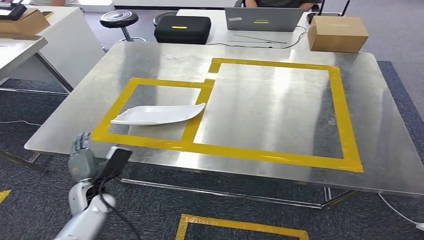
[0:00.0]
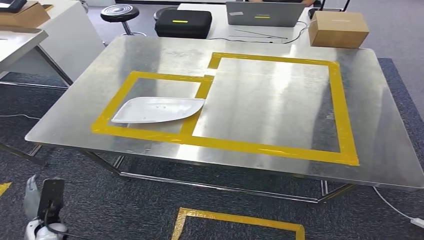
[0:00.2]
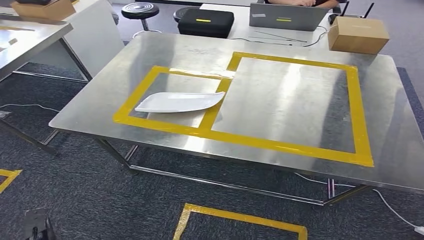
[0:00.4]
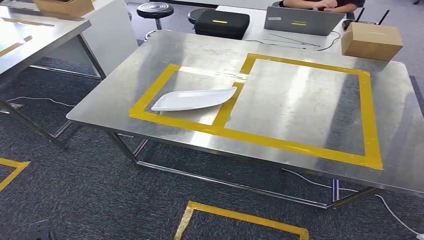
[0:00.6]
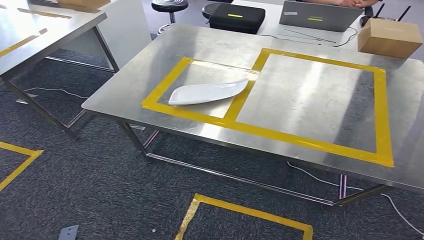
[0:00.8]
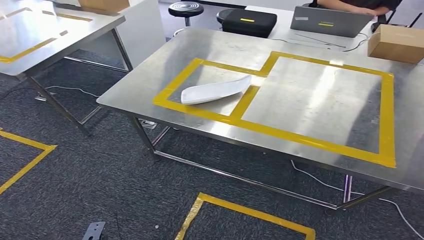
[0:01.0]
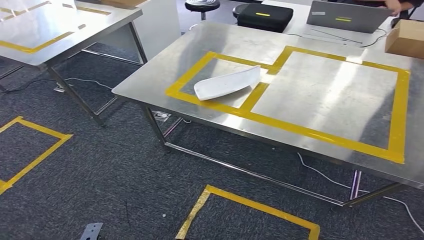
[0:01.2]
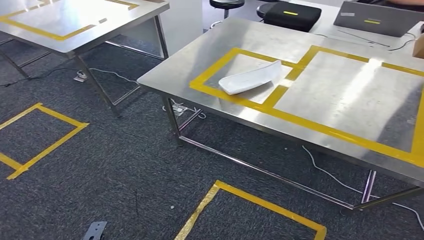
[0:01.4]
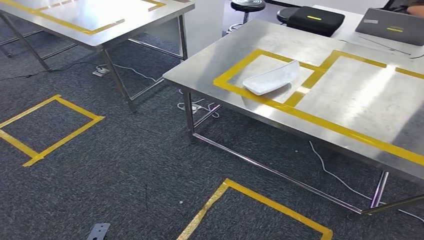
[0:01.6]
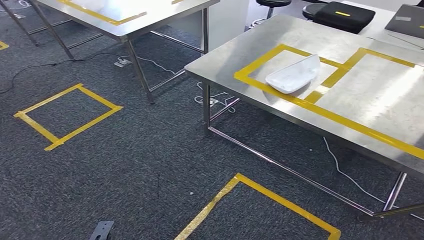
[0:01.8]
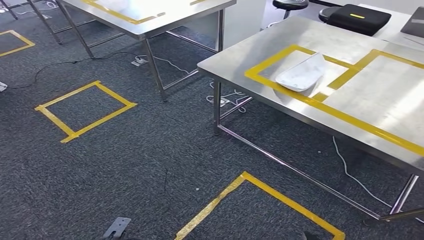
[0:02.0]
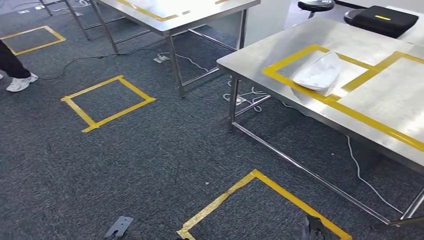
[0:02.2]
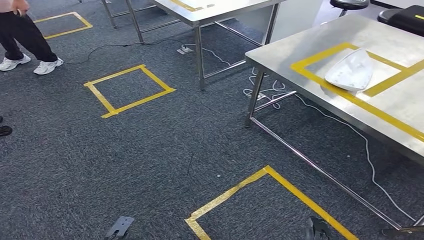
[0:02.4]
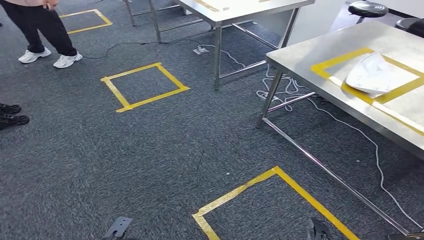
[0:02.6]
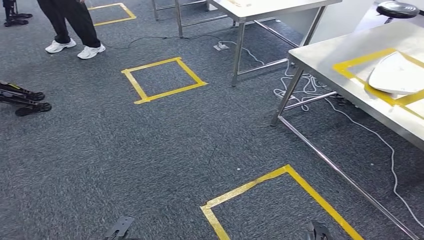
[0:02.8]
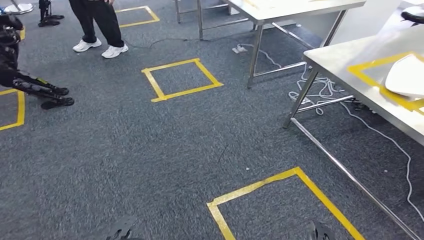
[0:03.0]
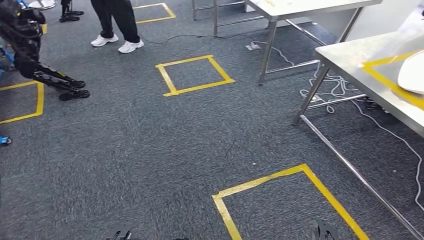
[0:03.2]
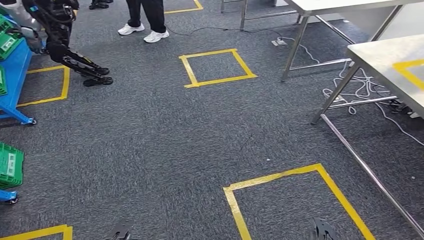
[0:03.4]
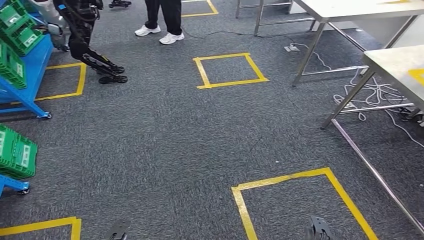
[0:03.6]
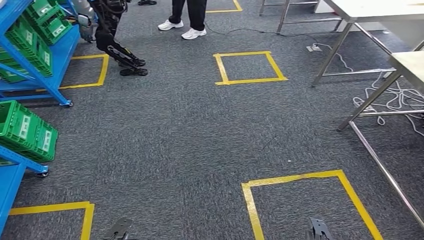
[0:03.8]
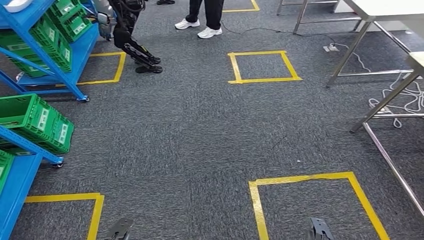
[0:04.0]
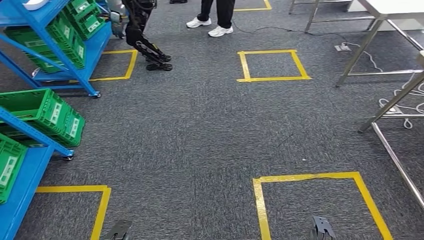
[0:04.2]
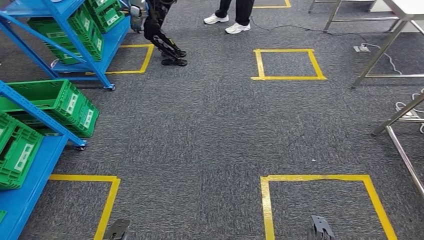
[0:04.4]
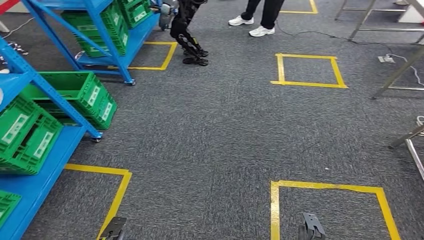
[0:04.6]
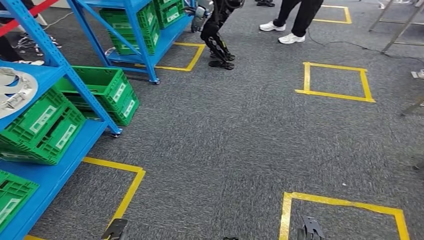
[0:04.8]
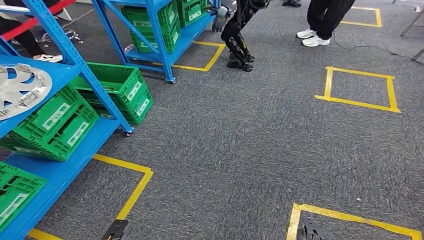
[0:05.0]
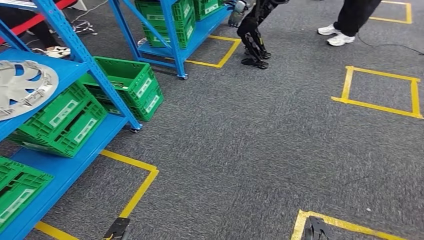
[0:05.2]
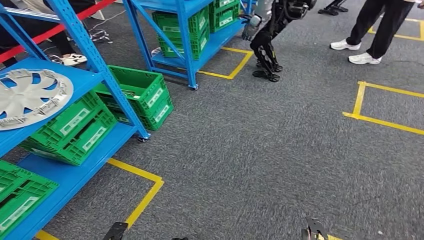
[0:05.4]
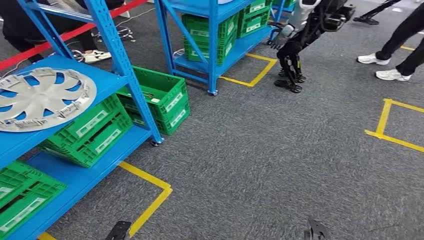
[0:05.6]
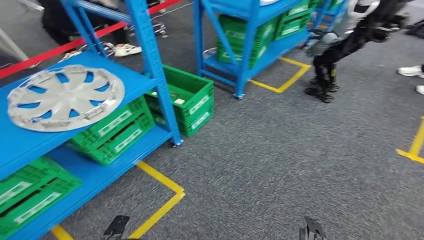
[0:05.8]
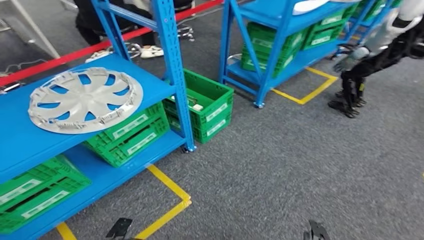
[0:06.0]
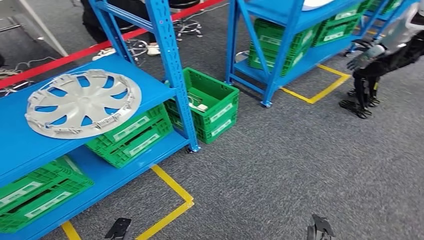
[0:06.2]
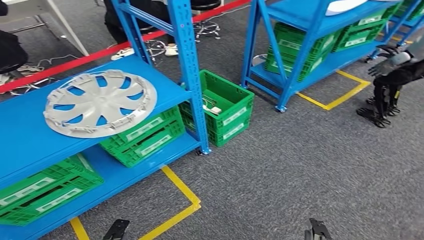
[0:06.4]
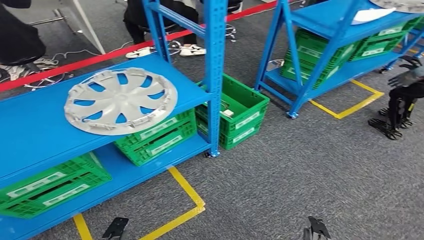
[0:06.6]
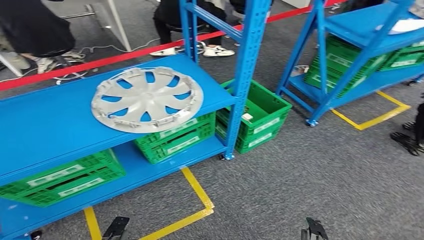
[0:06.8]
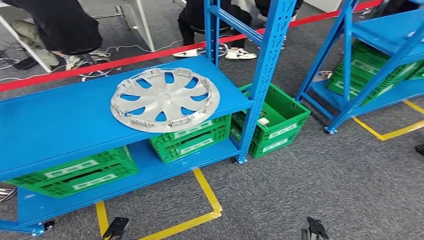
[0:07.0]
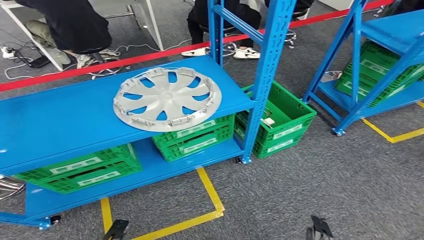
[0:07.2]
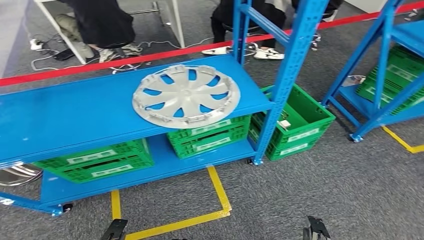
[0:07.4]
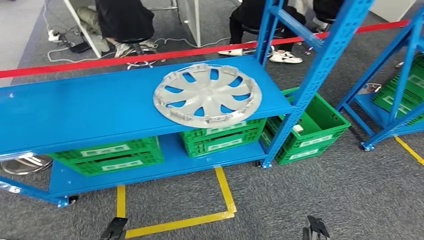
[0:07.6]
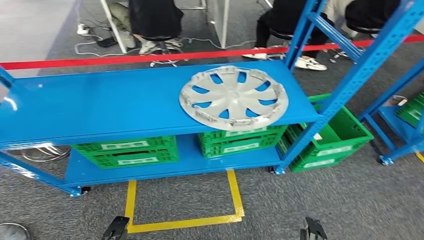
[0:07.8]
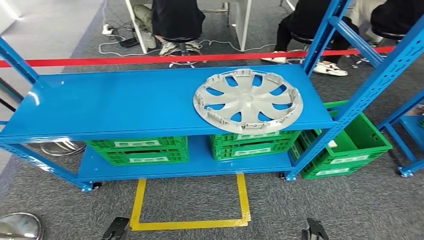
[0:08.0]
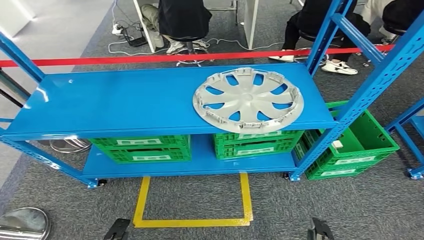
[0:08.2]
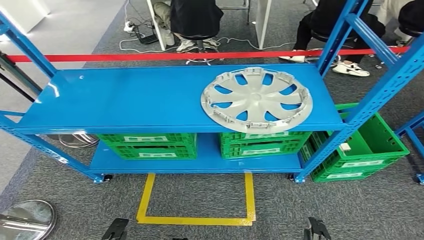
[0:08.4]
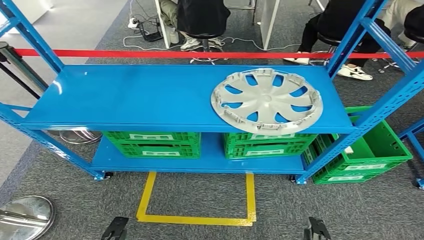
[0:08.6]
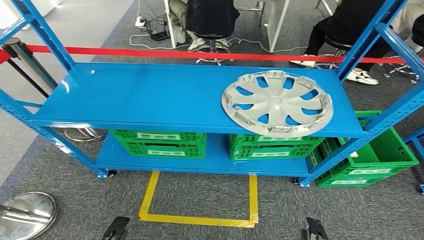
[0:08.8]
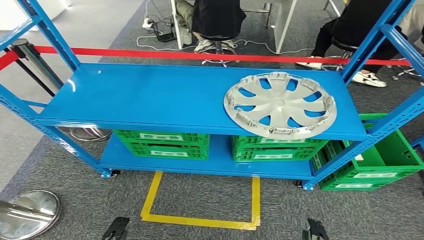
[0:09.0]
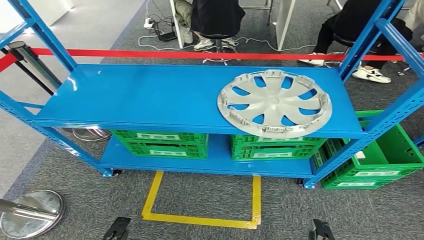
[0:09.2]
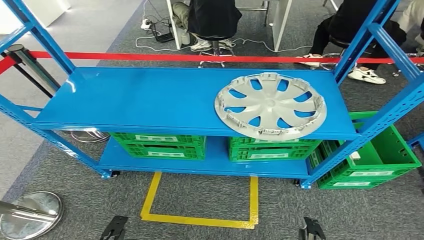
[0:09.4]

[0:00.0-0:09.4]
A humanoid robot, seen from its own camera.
Step, 0:00.0 to 0:02.2: Insert the small component into the corresponding slot on the workbench.
Step, 0:02.4 to 0:09.4: Return to the initial position at the workbench.

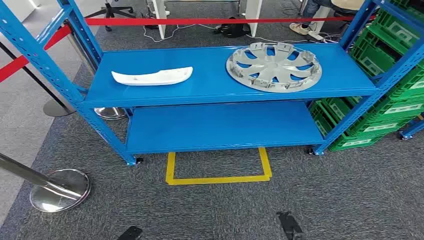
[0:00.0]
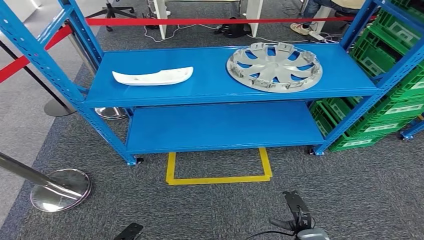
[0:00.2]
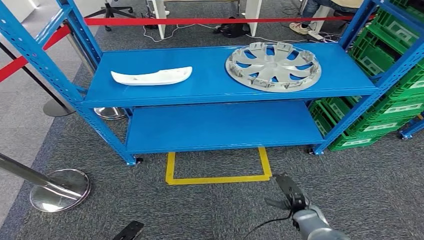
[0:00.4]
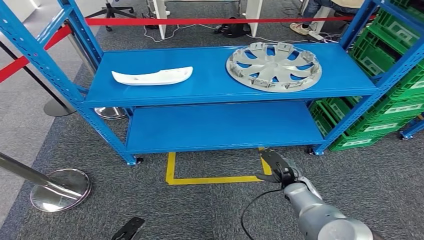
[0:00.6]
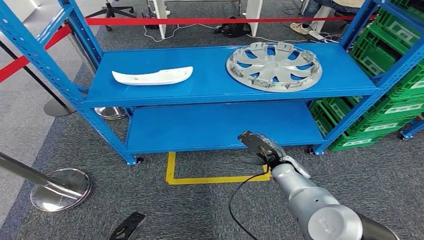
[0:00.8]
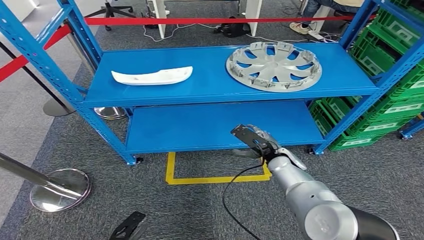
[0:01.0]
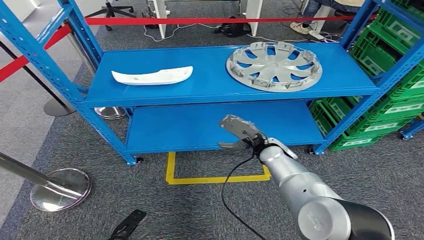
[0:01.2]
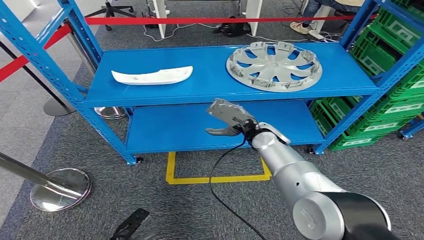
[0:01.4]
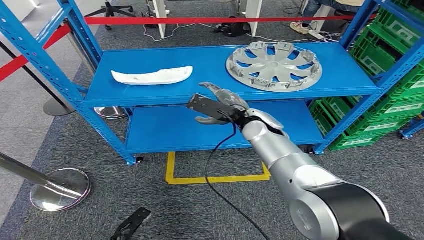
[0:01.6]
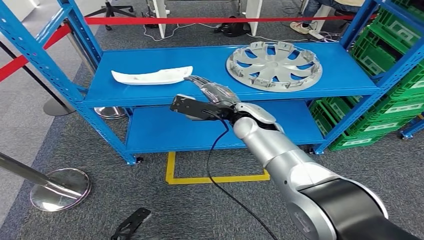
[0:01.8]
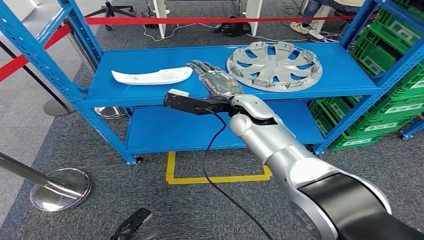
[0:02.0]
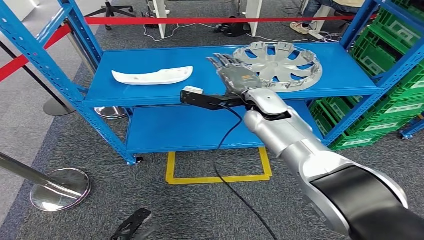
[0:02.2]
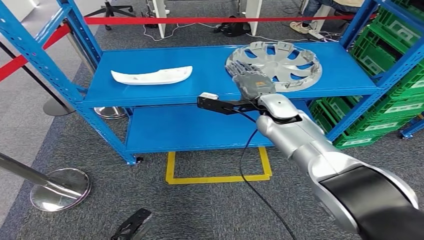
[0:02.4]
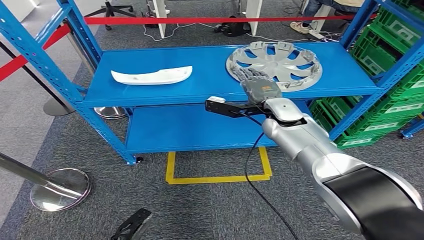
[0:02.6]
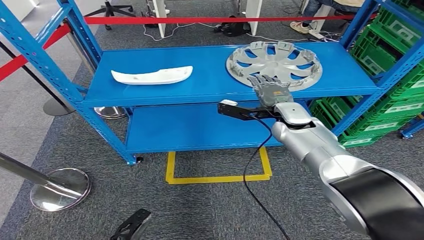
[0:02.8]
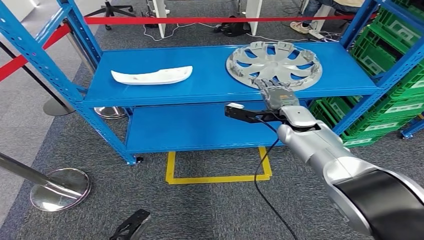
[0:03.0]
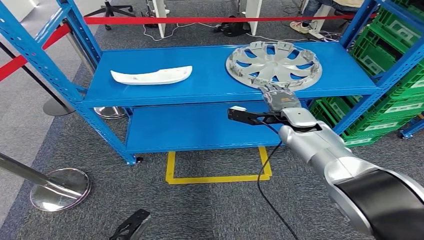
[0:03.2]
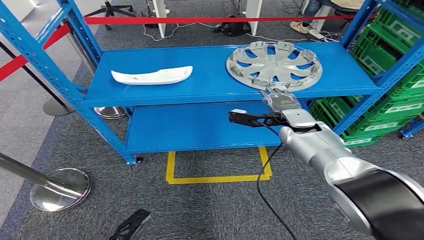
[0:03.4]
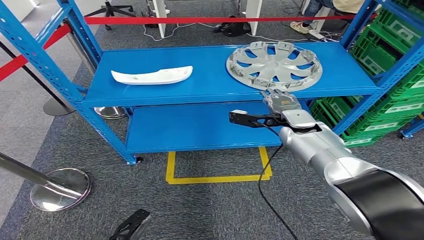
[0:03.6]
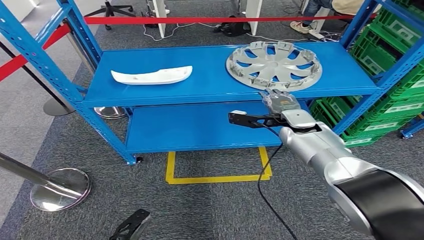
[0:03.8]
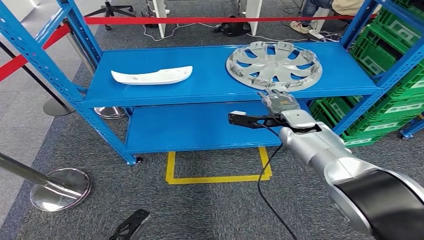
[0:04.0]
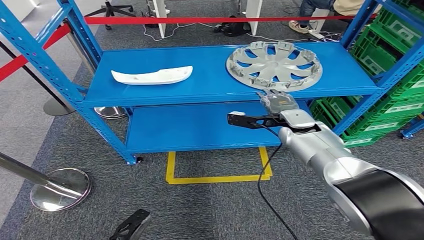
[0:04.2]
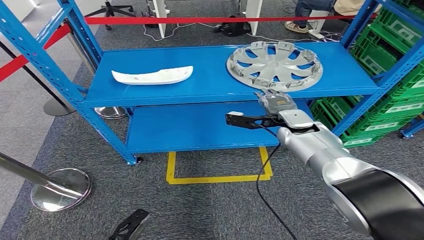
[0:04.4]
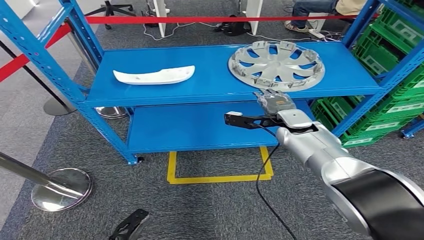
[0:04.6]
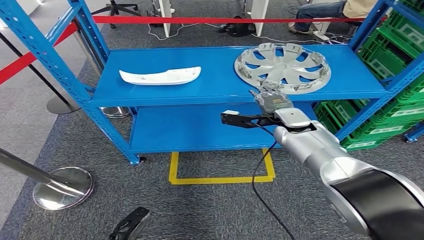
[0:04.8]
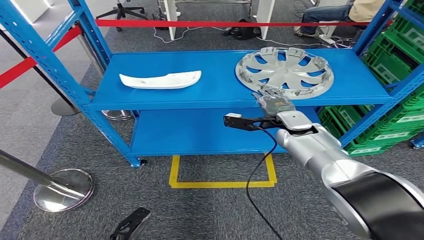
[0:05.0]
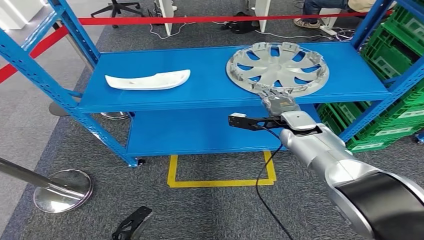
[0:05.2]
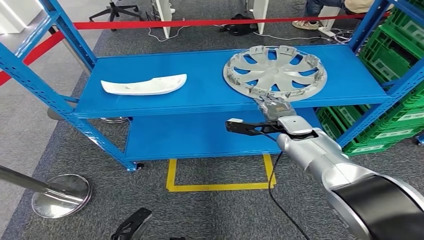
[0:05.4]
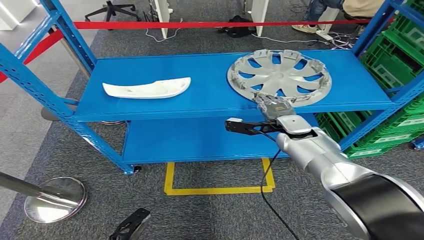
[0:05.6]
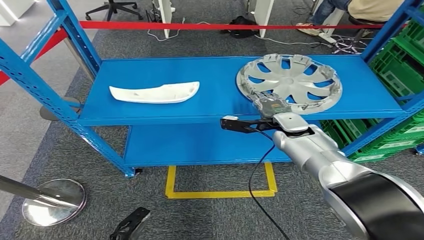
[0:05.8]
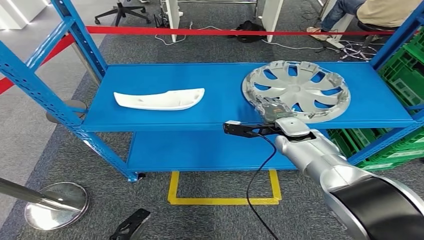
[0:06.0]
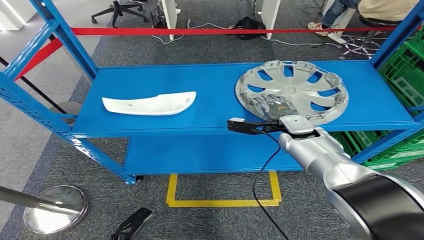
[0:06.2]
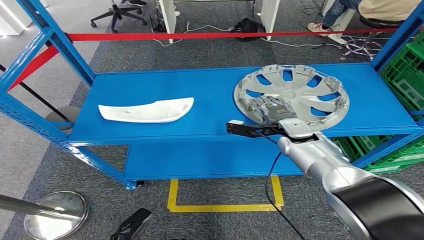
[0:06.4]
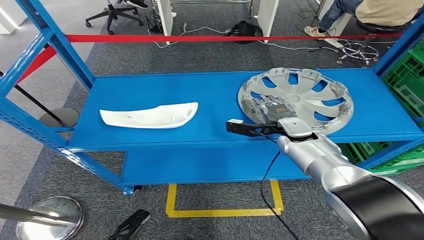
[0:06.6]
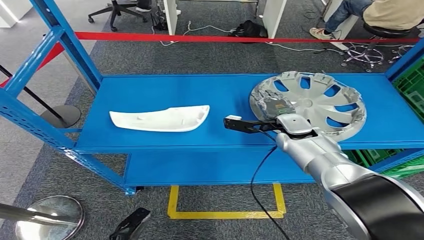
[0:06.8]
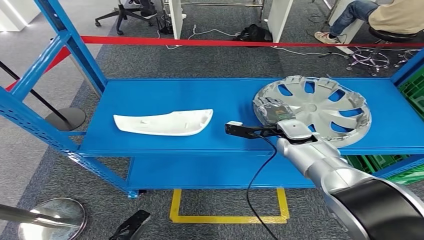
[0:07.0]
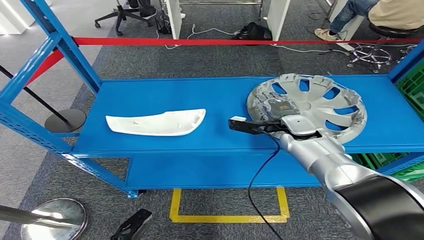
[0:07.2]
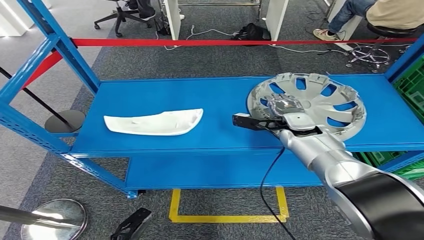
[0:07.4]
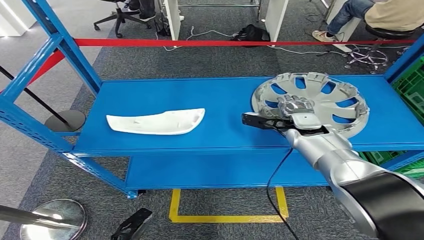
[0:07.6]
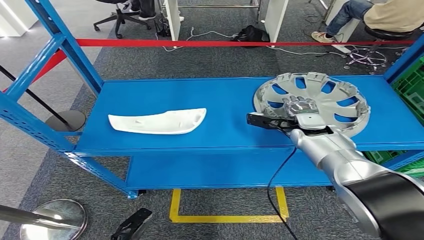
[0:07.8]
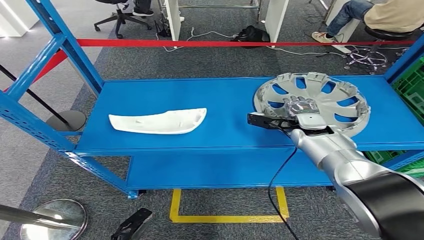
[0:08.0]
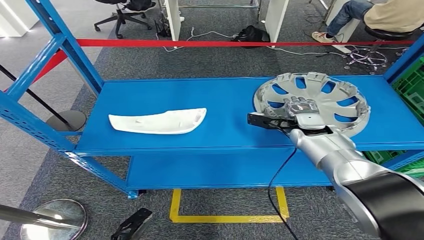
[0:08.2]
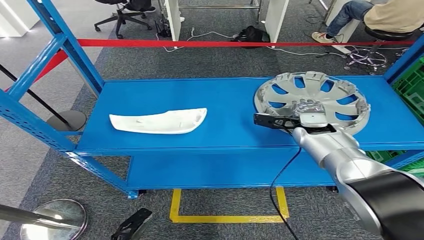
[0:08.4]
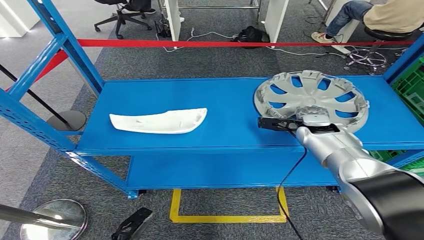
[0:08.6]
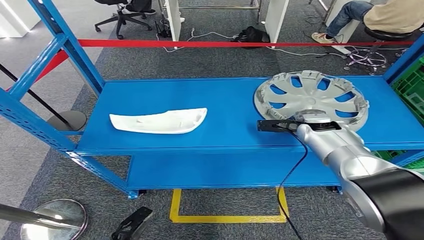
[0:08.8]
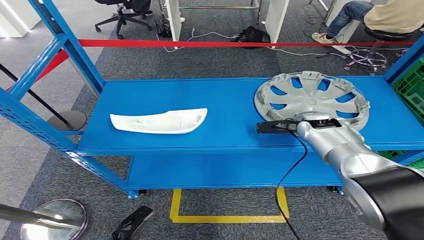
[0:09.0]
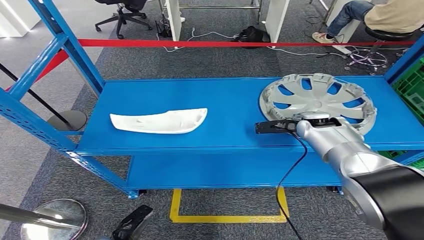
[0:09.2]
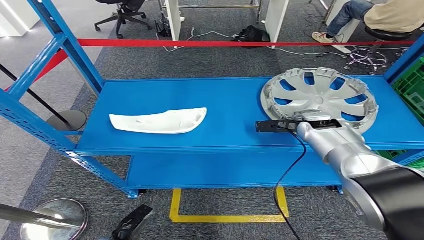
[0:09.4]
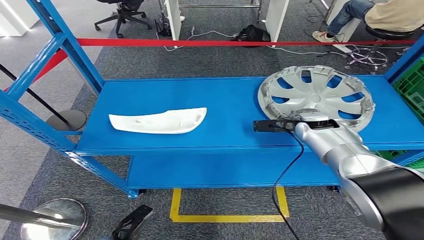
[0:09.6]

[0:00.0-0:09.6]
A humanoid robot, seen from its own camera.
0:01.6 to 0:03.2: The right hand shifts some 10 cm to the right.
